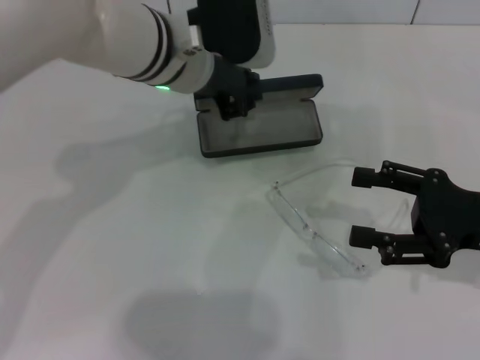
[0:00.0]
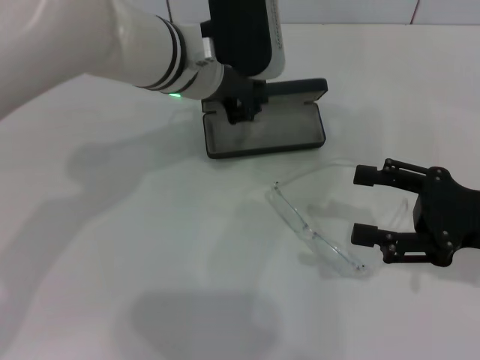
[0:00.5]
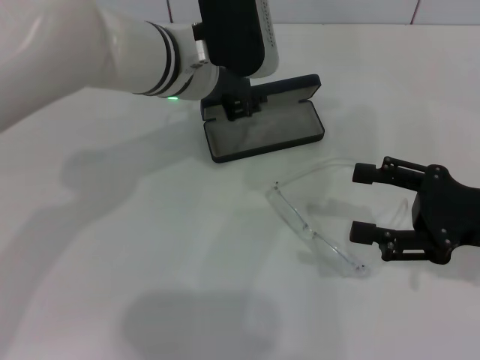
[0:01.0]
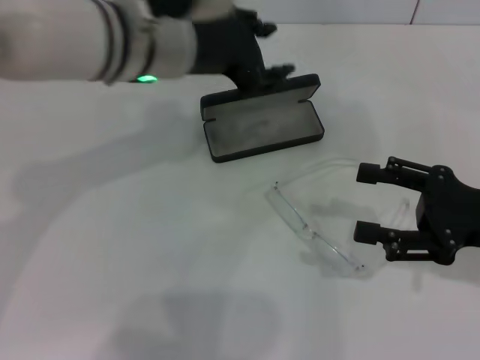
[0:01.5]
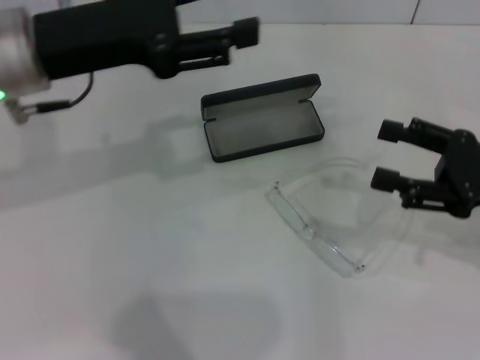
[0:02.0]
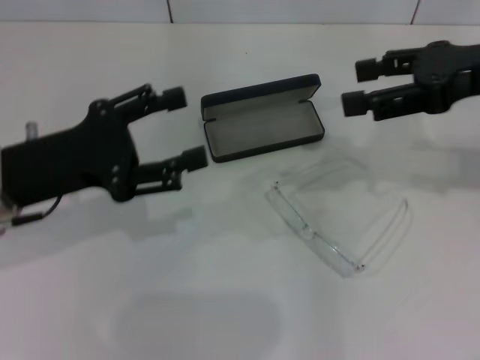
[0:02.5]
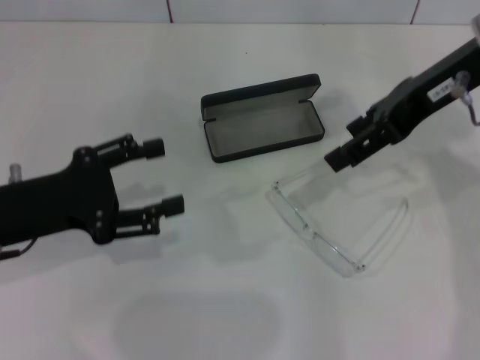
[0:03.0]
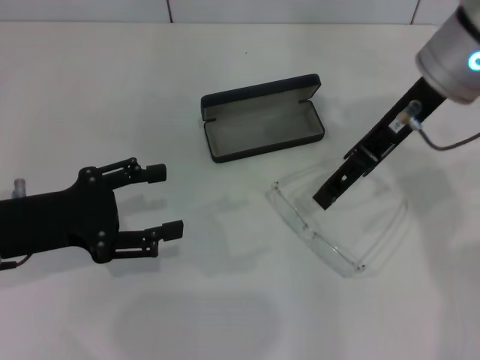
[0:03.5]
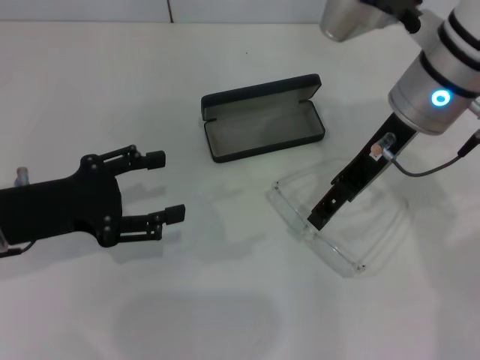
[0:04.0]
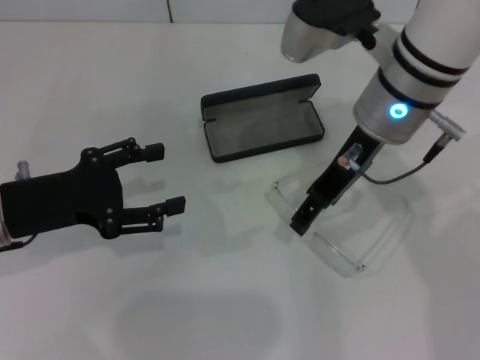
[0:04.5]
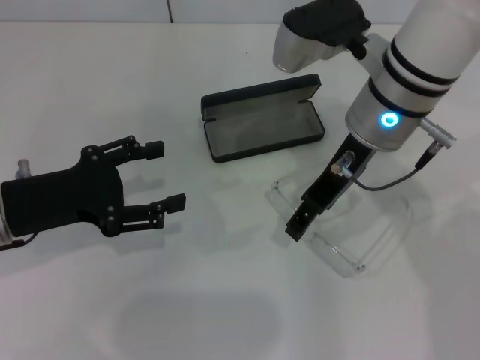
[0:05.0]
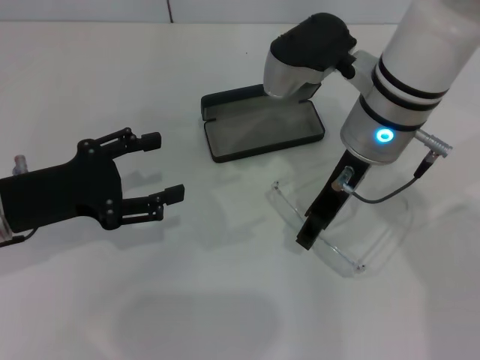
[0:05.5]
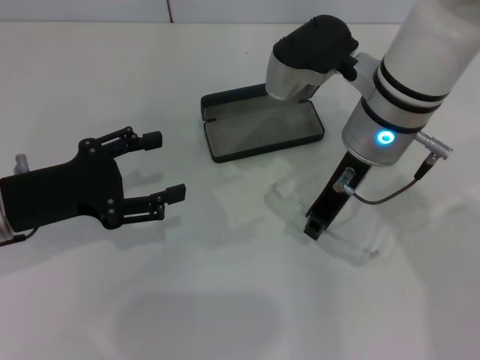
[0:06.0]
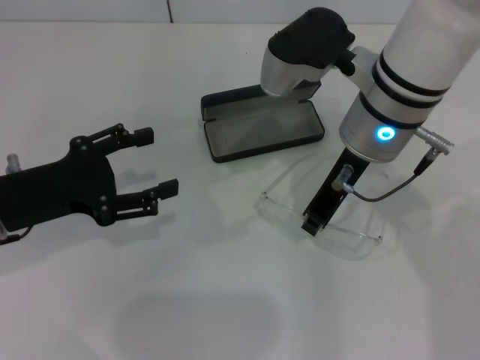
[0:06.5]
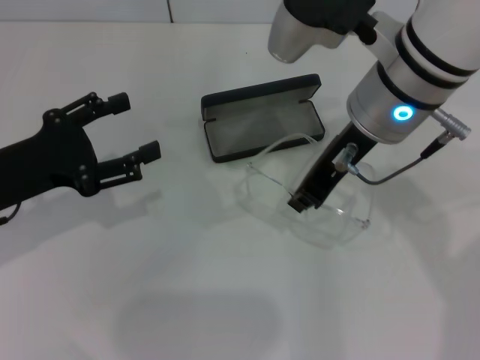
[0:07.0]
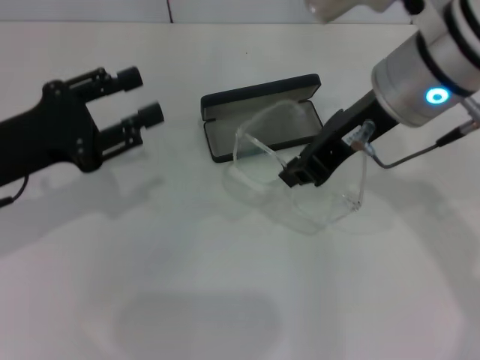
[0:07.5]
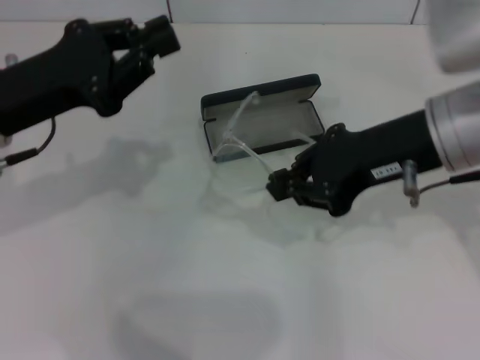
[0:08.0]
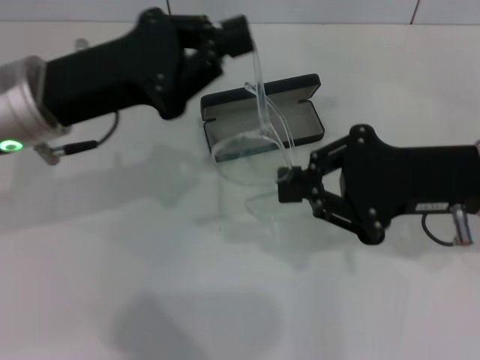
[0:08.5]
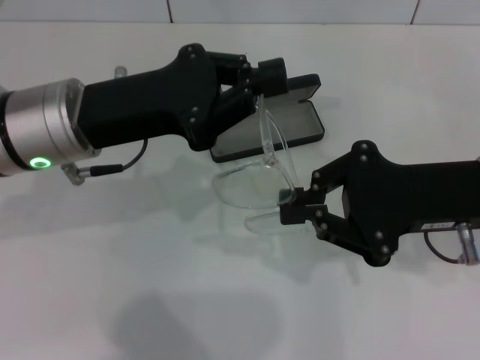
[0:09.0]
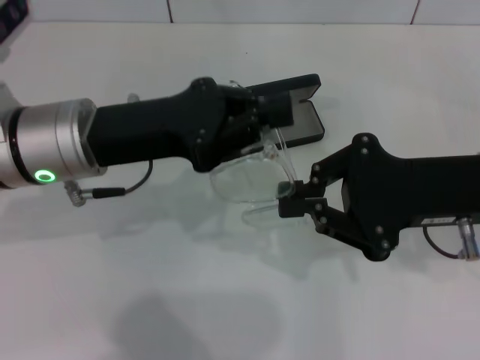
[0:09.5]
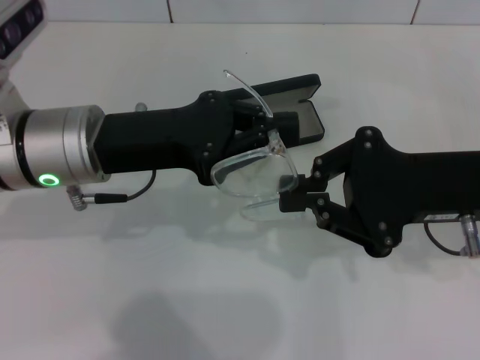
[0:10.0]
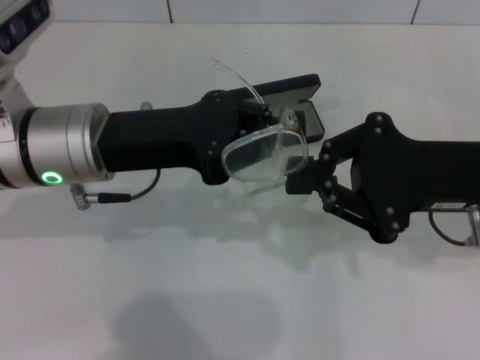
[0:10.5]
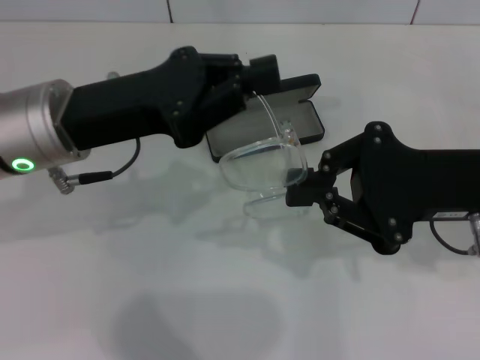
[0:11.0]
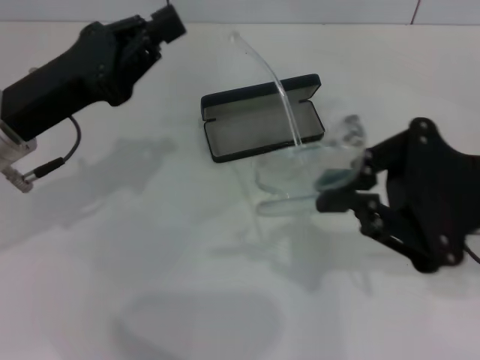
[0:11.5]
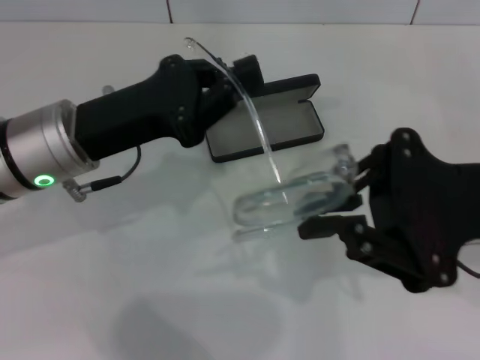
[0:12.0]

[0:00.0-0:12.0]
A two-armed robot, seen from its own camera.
Step, 0:01.5 to 0:06.0: Grab the eyeglass frame with your right hand.
0:00.0 to 0:02.0: The left gripper heads to the left and backward, covering about 15 cm, and opens up.
0:02.0 to 0:04.0: The left gripper shifts roughly 15 cm downward, backward and to the left. Meanwhile the right gripper moves to the left, forward and upward, about 20 cm.
0:04.0 to 0:06.0: The right gripper shifts by about 5 cm, and closes.
0:06.0 to 0:08.0: The right gripper moves to the right and backward, about 10 cm, and closes its fingers, while the left gripper is displaced upward by some 5 cm, and closes its fingers.
0:08.0 to 0:10.0: The left gripper shifts roughly 5 cm to the right, and closes its fingers. The right gripper moves about 5 cm.

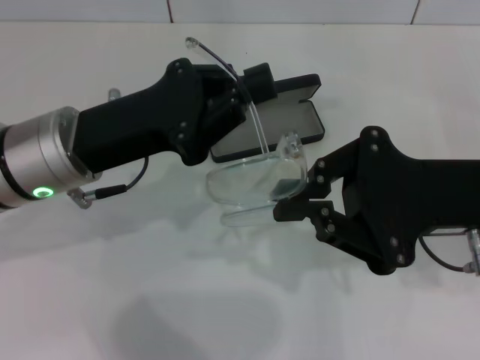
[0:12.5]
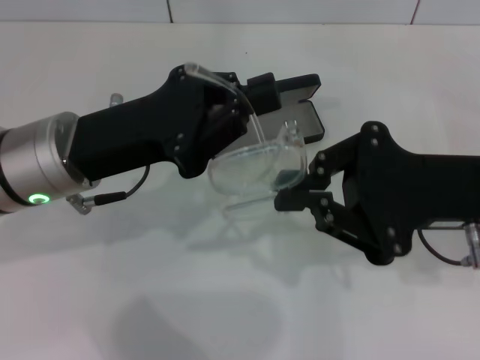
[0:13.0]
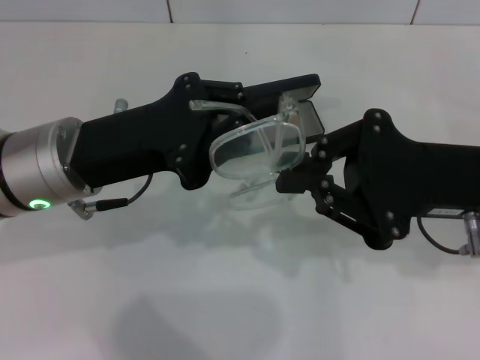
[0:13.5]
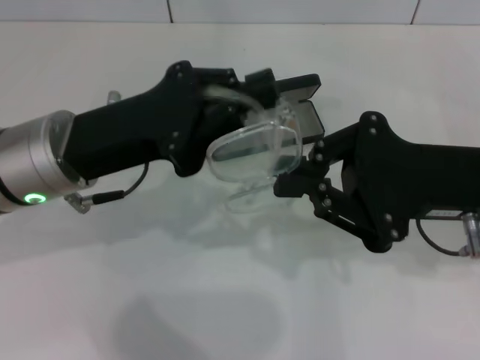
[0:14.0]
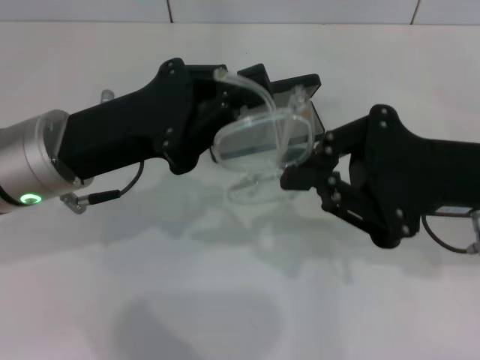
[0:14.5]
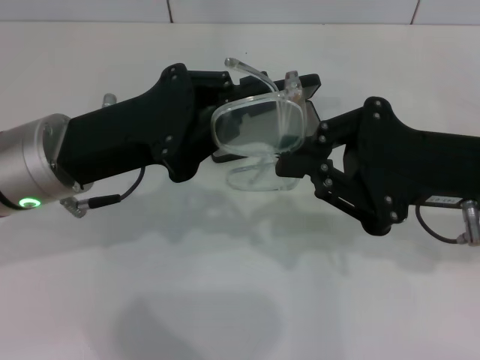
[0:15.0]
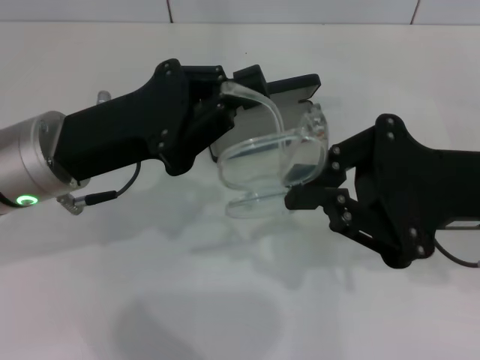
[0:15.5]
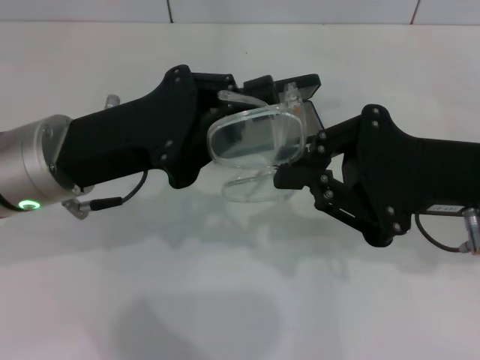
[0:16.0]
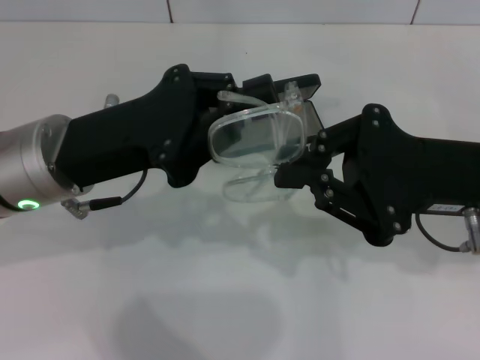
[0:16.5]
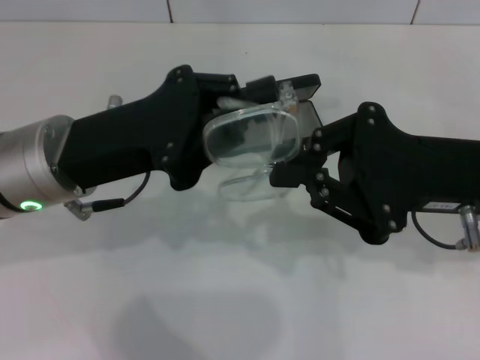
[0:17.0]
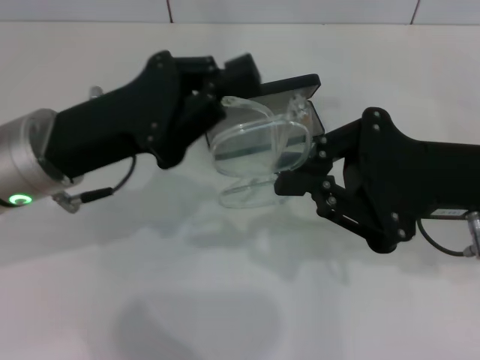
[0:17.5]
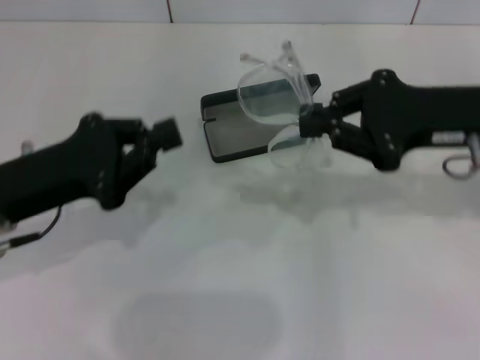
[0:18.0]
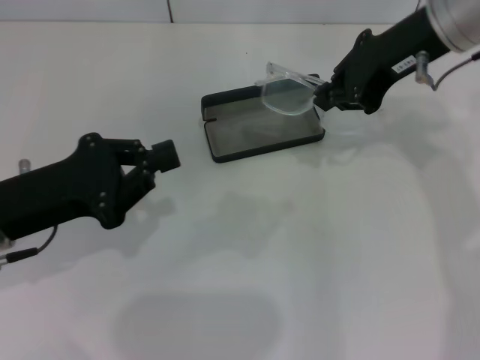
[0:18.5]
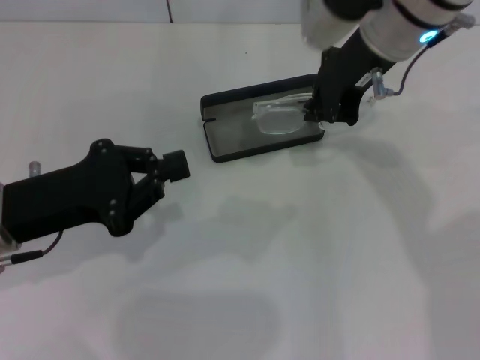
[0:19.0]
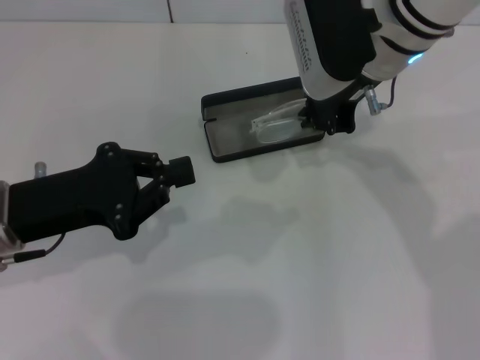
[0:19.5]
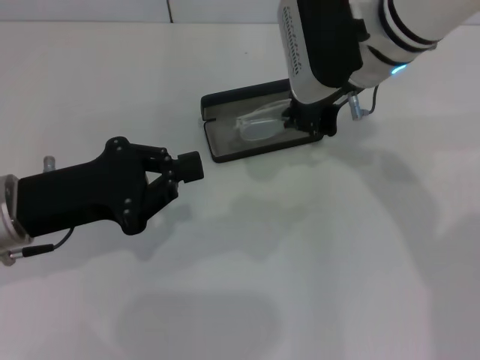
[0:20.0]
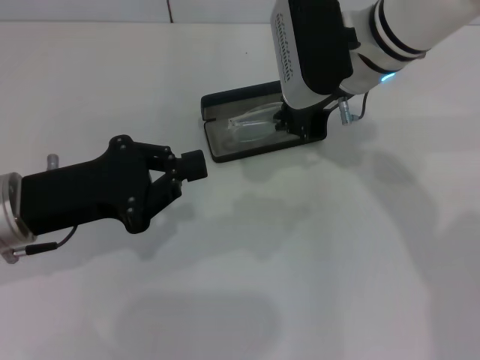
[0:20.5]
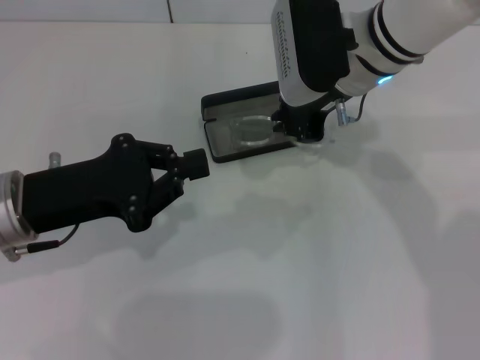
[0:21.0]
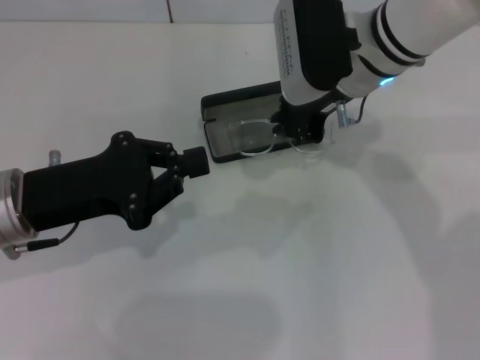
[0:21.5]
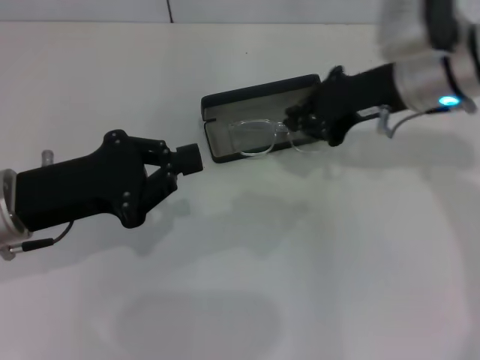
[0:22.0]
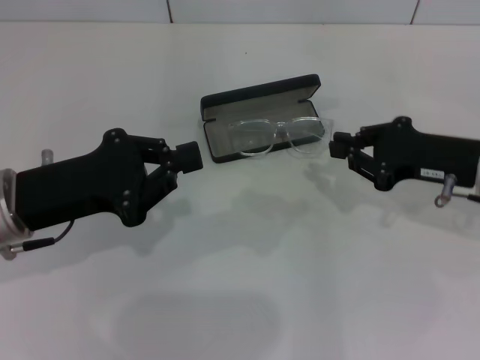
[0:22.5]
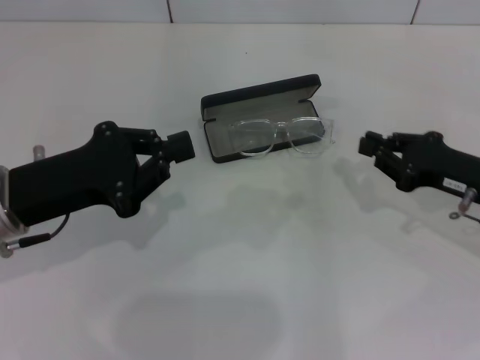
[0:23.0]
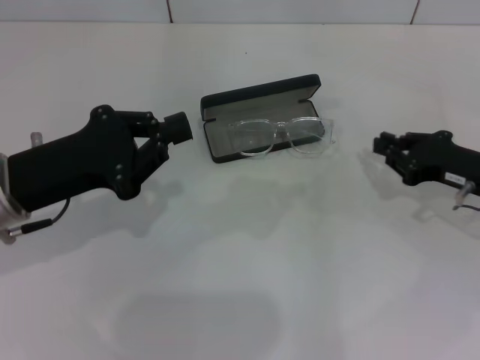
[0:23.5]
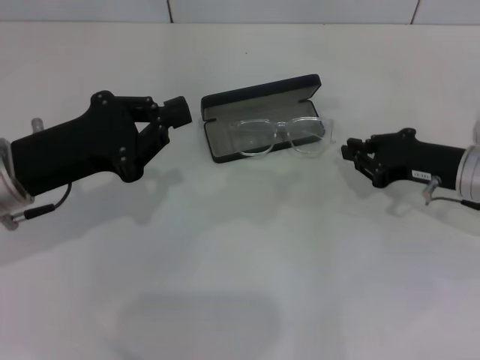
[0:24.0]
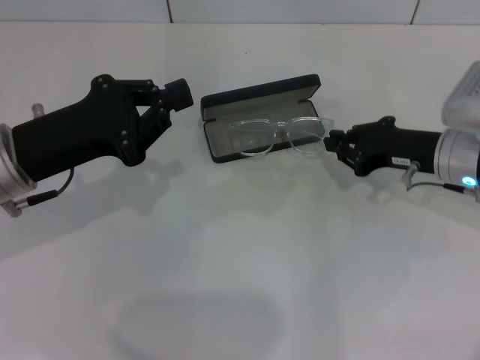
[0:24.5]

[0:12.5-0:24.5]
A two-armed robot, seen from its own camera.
Step, 0:12.5 to 0:17.0: Fold the frame with your left hand.
Step, 0:17.5 to 0:22.0: Put the glasses into the case with your right hand.
0:12.5 to 0:14.5: The grippers make only small movements.
0:14.5 to 0:16.5: Neither gripper changes place.
0:16.5 to 0:18.5: The left gripper heads to the left, covering some 5 cm, while the right gripper moves forward and upward, about 15 cm.
0:18.5 to 0:20.5: The right gripper shifts approximately 10 cm to the left and downward.
0:20.5 to 0:22.5: The right gripper travels to the right, downward and backward by some 20 cm.
0:22.5 to 0:24.5: The right gripper ends up approximately 5 cm from where it was.

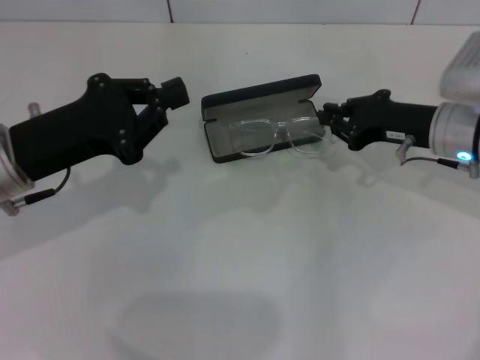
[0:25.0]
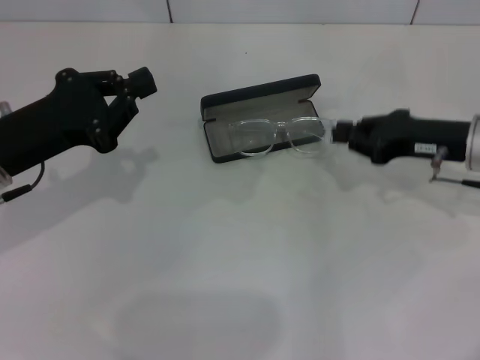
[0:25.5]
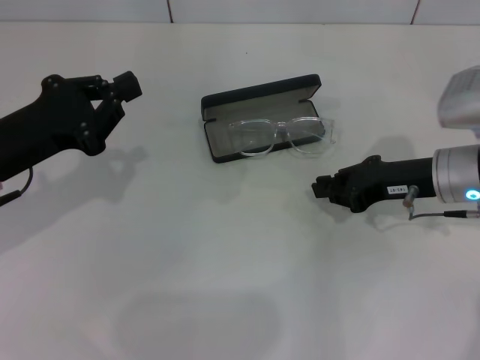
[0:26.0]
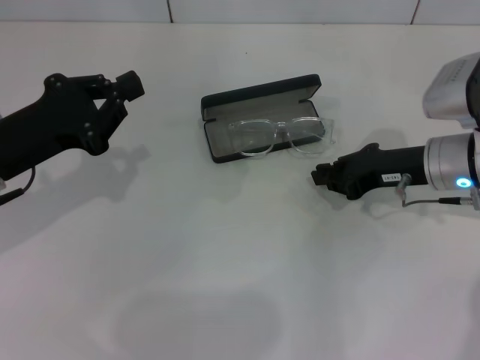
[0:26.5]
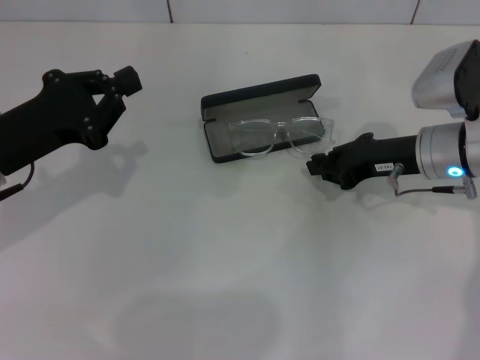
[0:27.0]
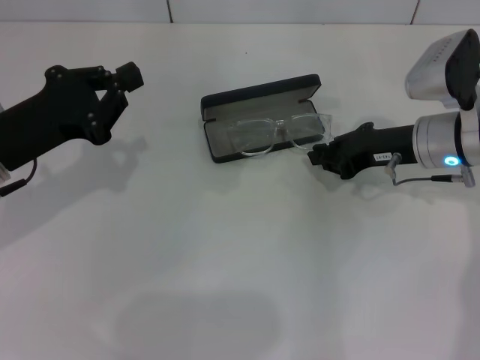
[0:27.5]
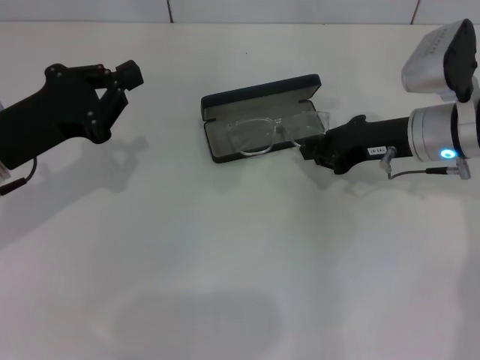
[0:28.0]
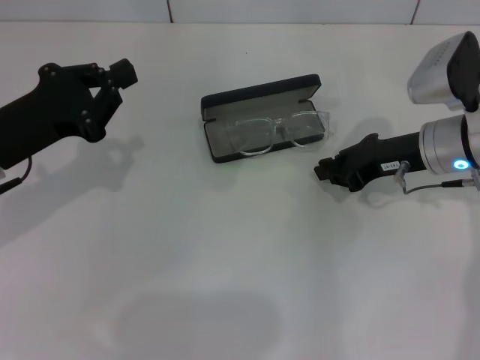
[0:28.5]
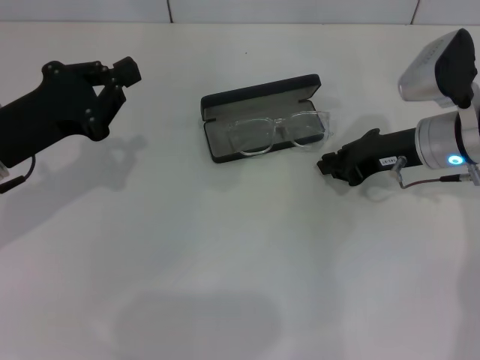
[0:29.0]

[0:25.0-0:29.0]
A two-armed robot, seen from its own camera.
0:27.0 to 0:29.0: The grippers make only small movements.
